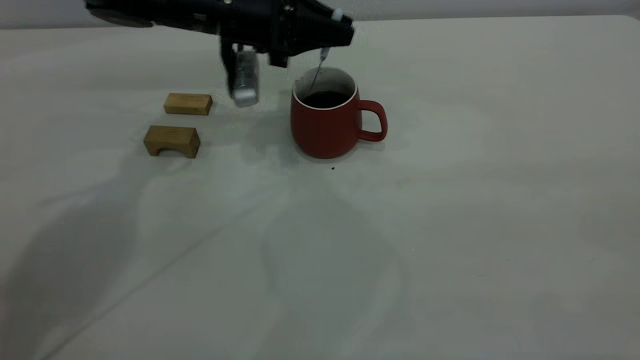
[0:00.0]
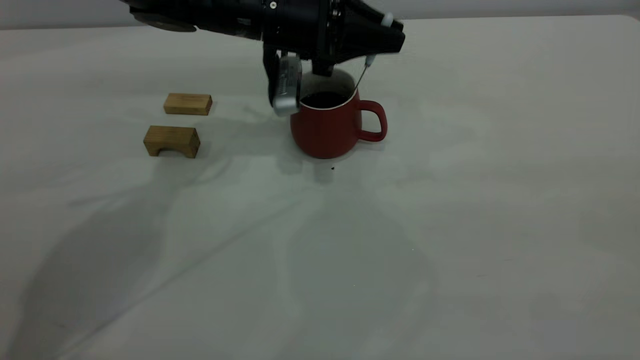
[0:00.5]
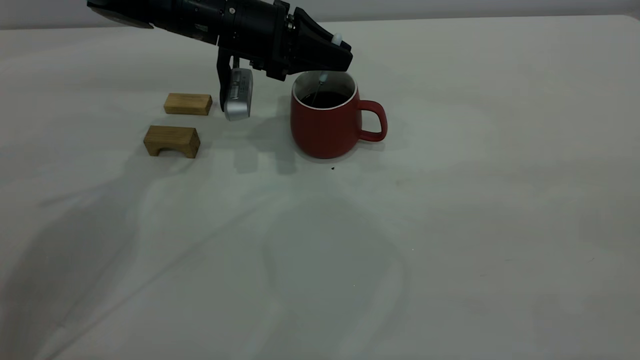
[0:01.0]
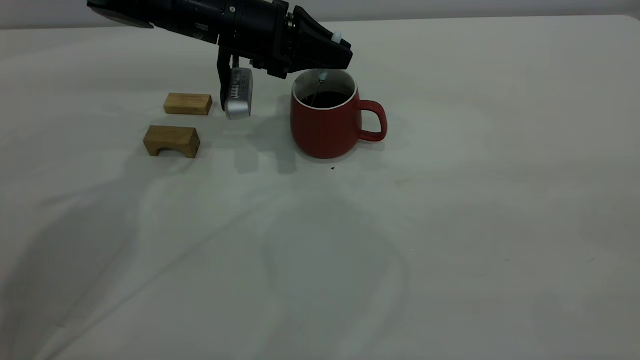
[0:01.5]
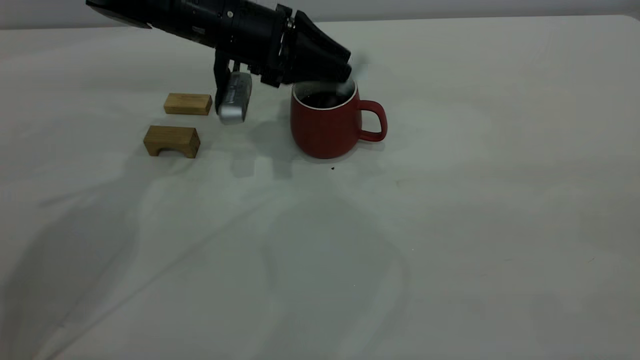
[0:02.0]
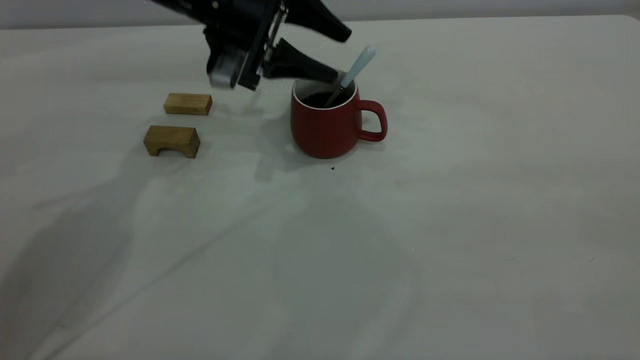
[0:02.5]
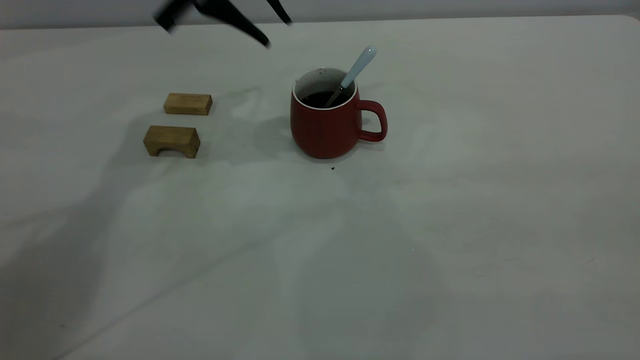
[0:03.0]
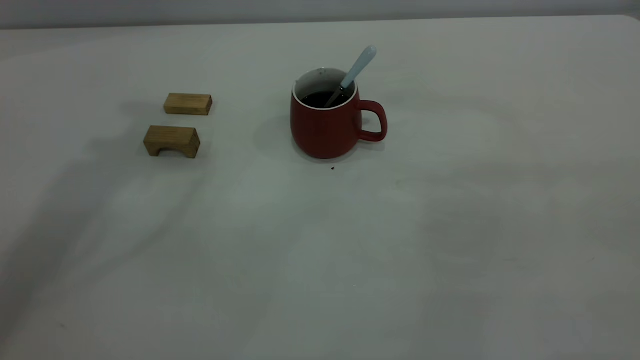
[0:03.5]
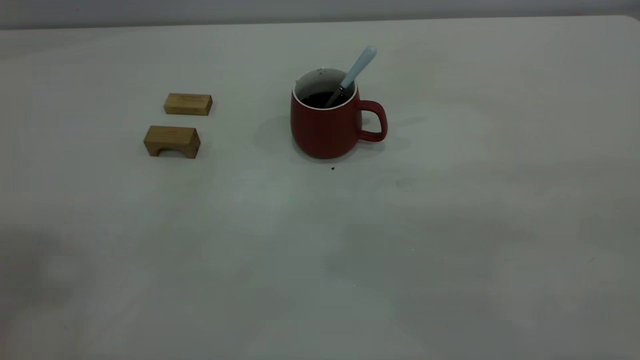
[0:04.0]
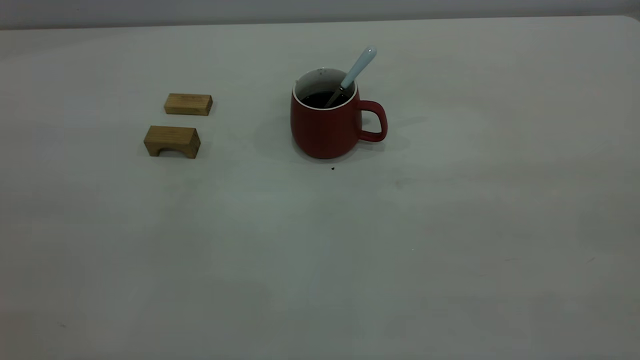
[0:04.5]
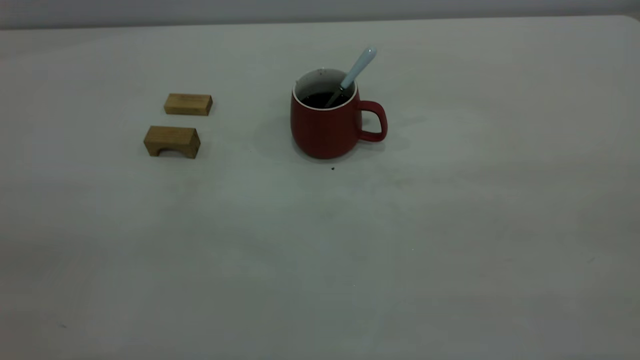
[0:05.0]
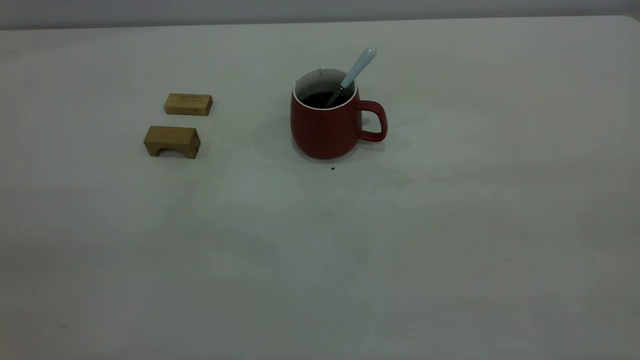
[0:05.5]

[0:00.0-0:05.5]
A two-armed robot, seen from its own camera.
Step, 0:00.0 to 0:02.5: Stir the coffee in the cup.
0:00.0 to 0:02.0: The left gripper opens.
0:02.0 to 0:03.5: The left gripper moves upward, approximately 35 cm, and closes.
